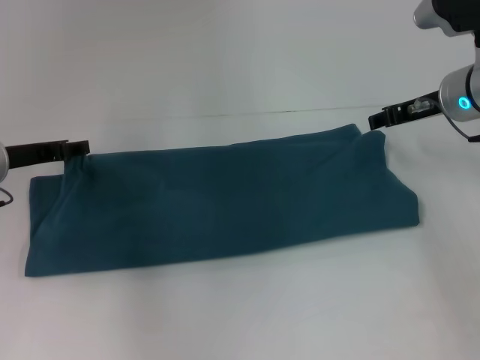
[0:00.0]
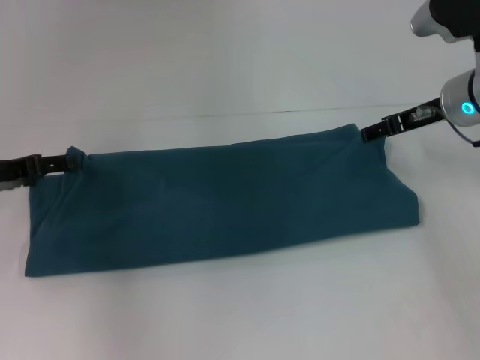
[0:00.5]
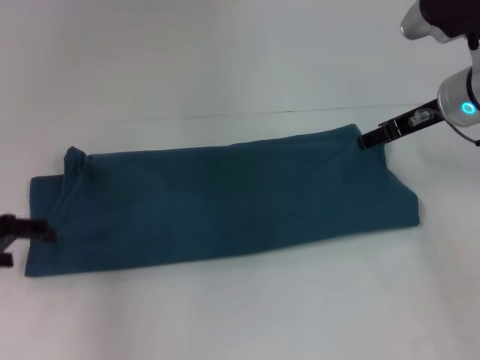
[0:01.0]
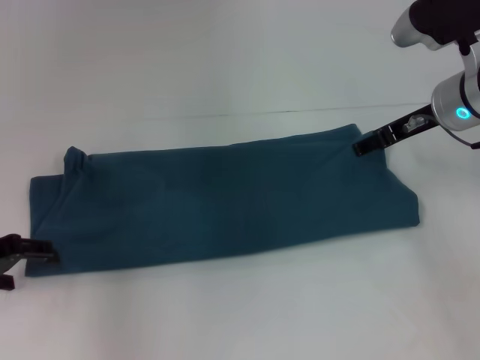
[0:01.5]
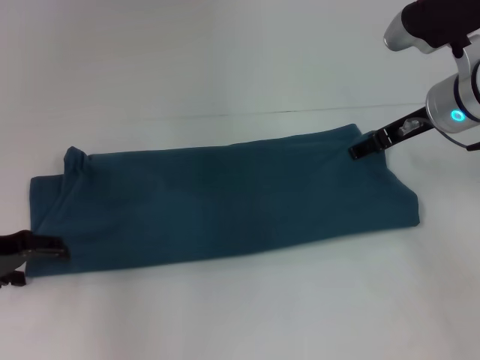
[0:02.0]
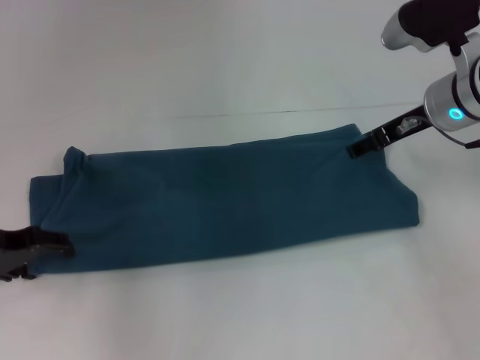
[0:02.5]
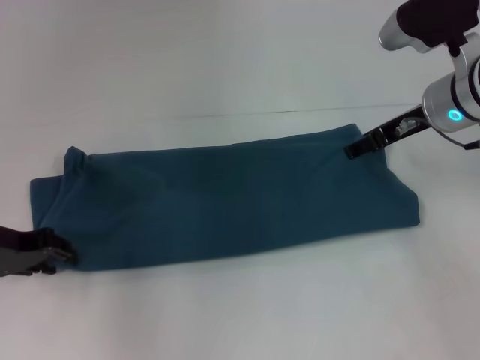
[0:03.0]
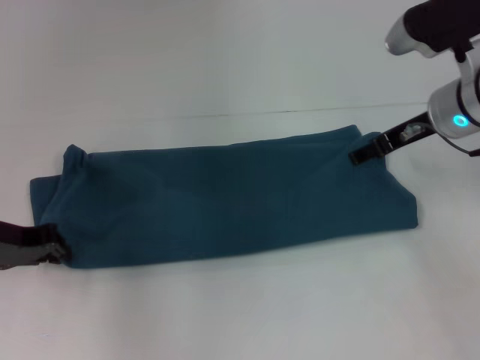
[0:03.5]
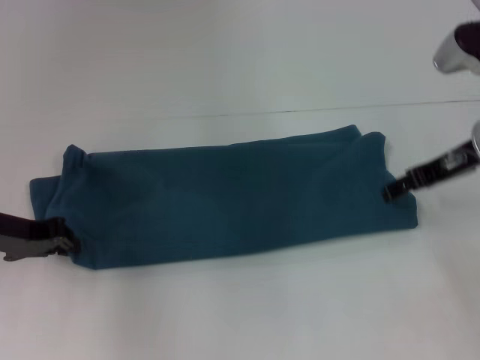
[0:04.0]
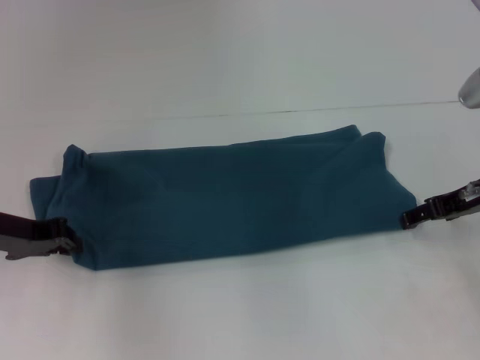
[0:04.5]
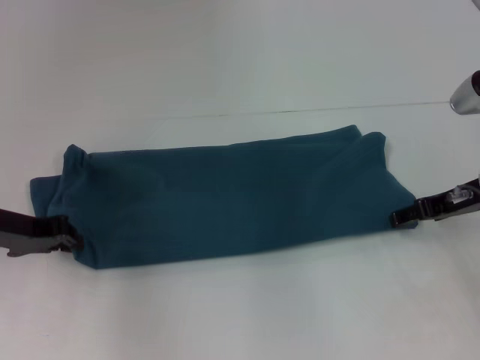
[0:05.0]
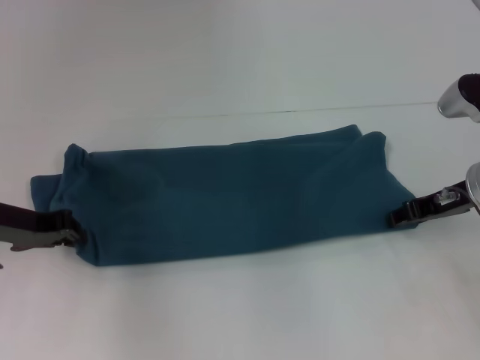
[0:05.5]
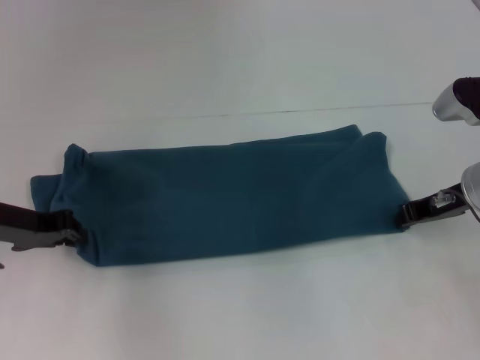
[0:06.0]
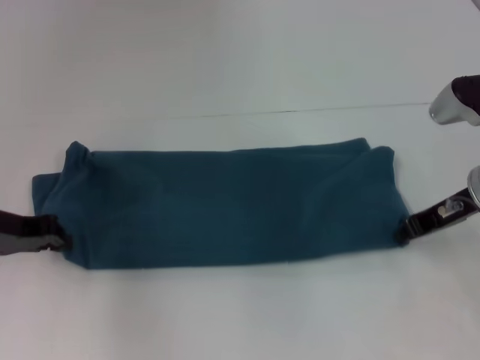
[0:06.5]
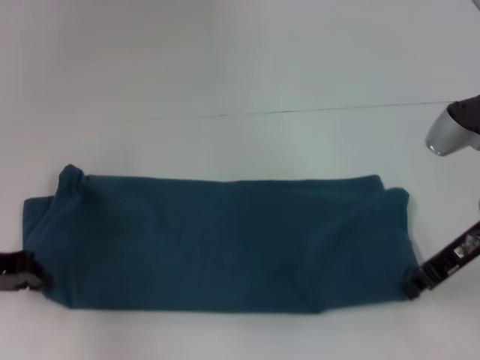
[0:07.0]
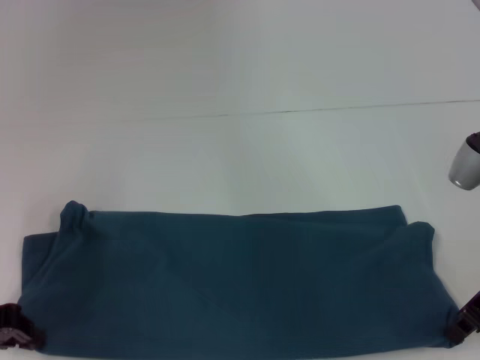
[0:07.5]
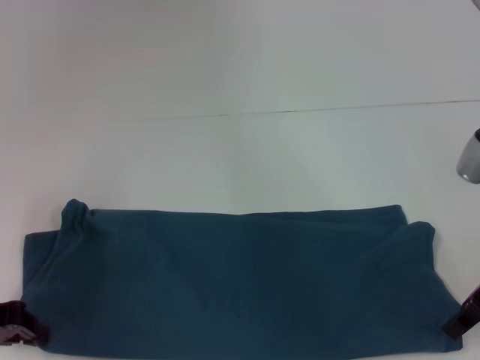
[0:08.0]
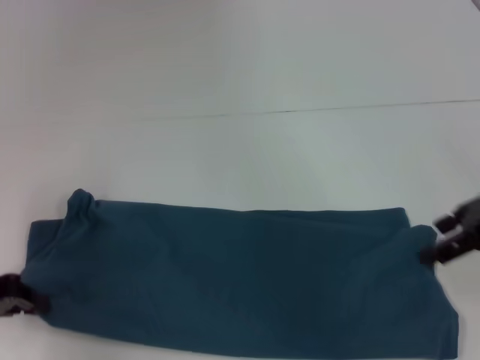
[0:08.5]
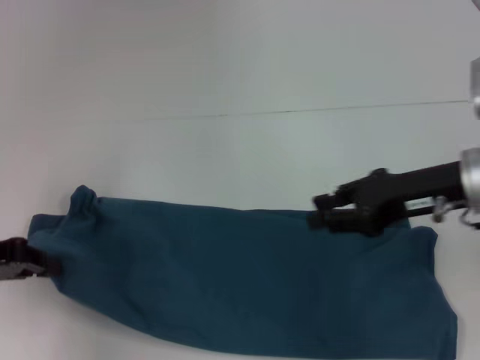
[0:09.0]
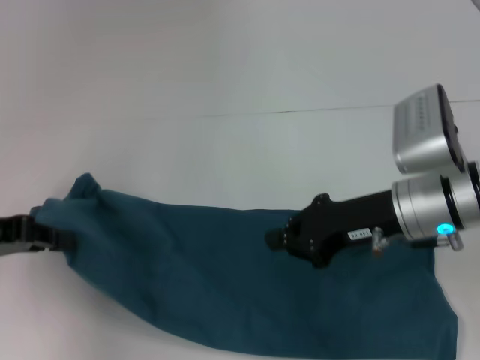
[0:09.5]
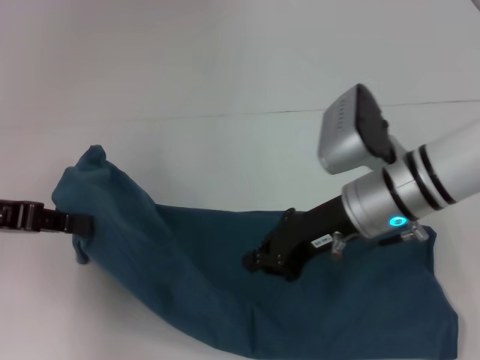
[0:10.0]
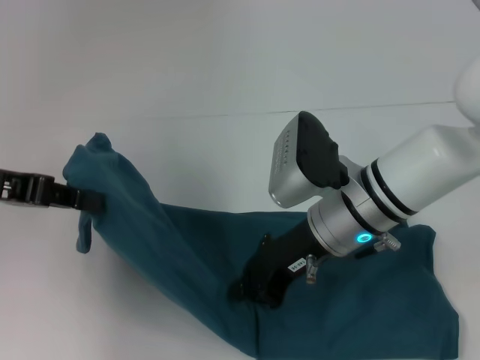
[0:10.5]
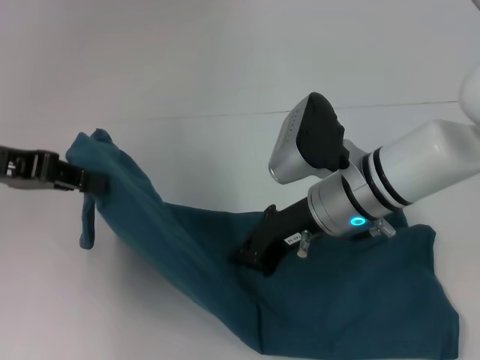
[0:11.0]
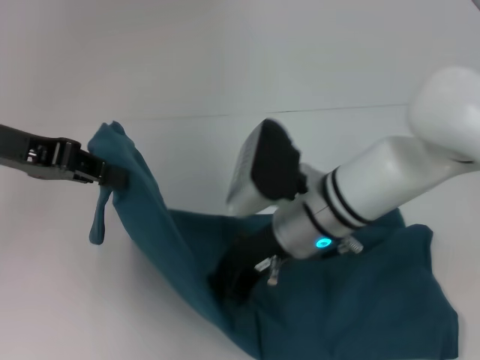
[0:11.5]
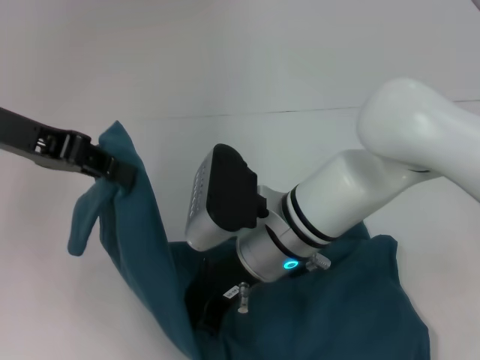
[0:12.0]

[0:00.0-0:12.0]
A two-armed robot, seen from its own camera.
Step, 0:00.5 to 0:08.0: Pull the clothes with your left hand.
Step, 0:00.5 to 0:08.0: Pull the clothes with your right hand.
0:00.0 to 0:02.0: The left gripper heads backward, covering about 5 cm, and opens. Meanwhile the right gripper opens up.
0:02.0 to 0:04.0: The right gripper moves some 5 cm, while the left gripper closes.
0:04.0 to 0:06.0: The right gripper moves downward, roughly 5 cm, and closes its fingers.
0:06.0 to 0:08.0: The two grippers go roughly 5 cm backward.
0:08.0 to 0:10.0: The right gripper heads to the left, covering roughly 15 cm, and opens, then closes again. Meanwhile the left gripper moves upward, approximately 10 cm.
0:10.0 to 0:12.0: The right gripper shifts roughly 10 cm to the left. Meanwhile the left gripper shifts roughly 10 cm upward and to the right.

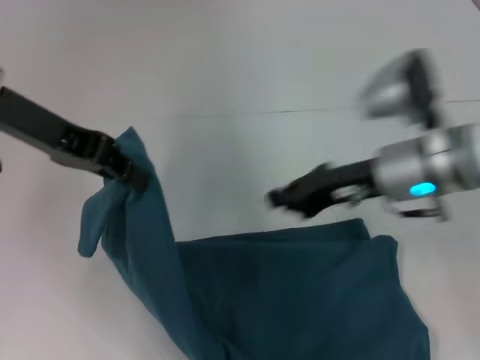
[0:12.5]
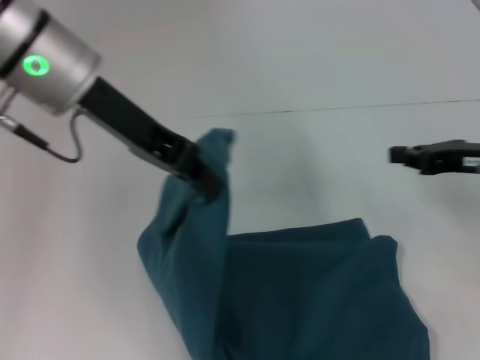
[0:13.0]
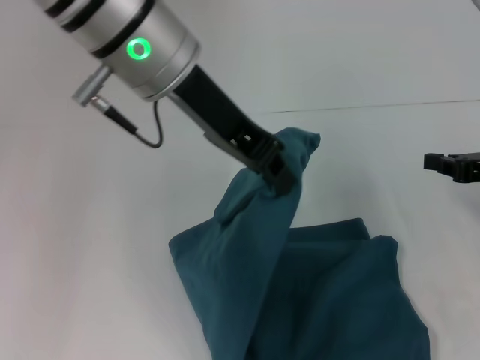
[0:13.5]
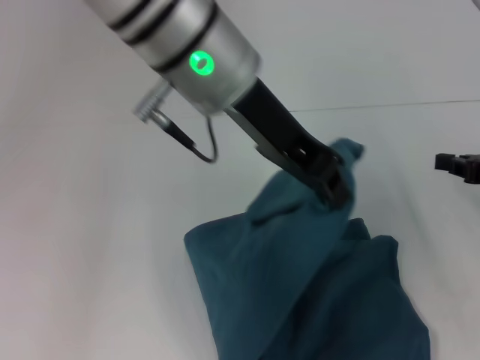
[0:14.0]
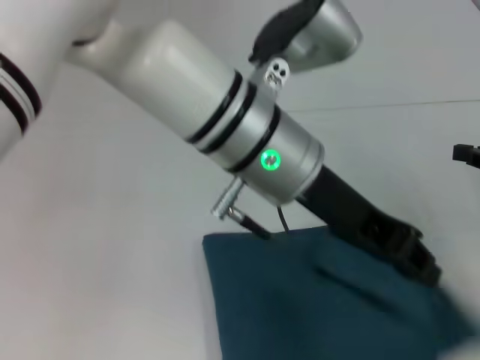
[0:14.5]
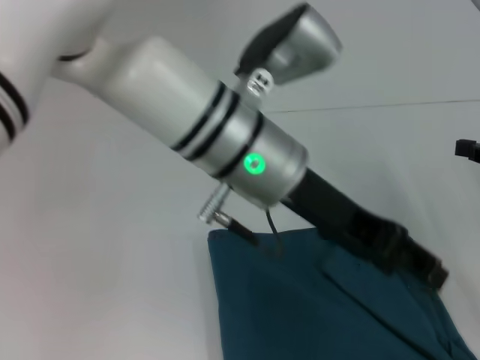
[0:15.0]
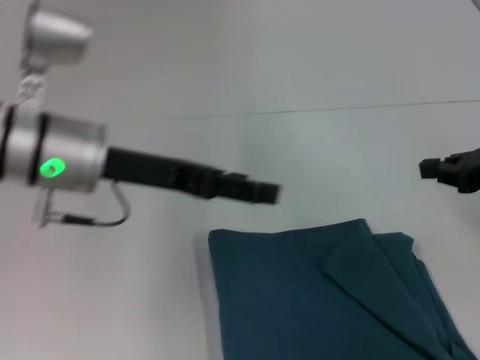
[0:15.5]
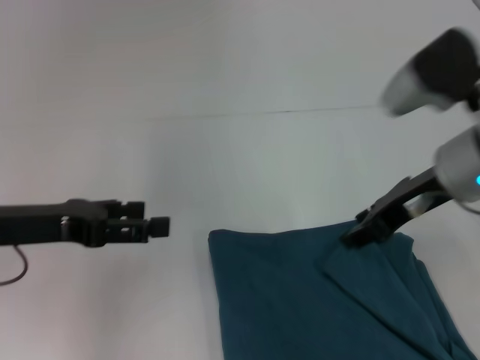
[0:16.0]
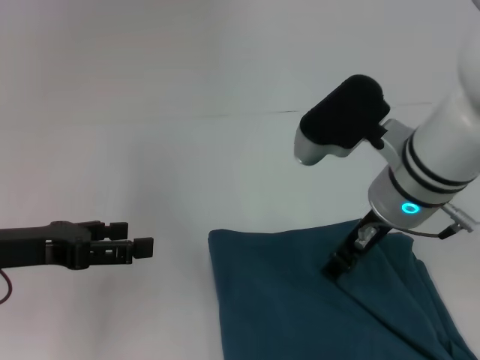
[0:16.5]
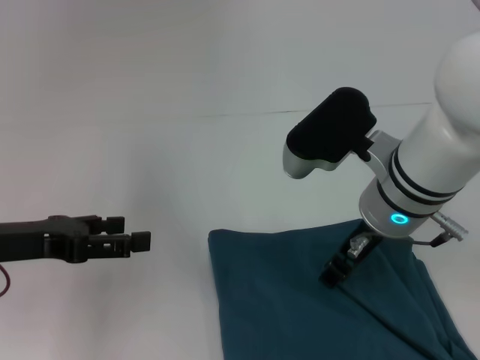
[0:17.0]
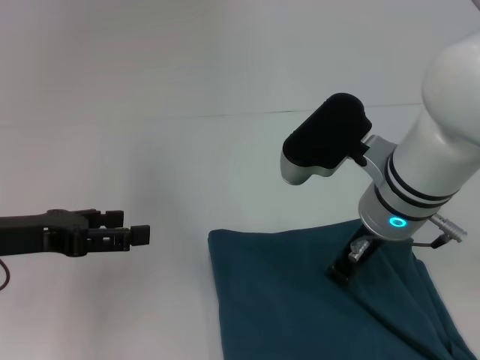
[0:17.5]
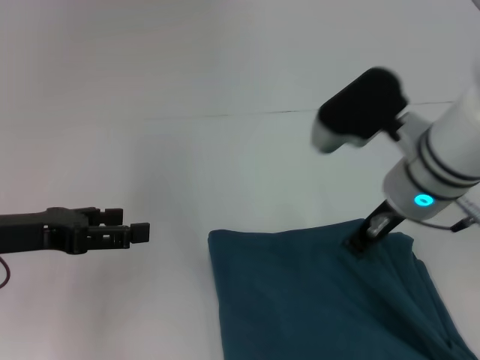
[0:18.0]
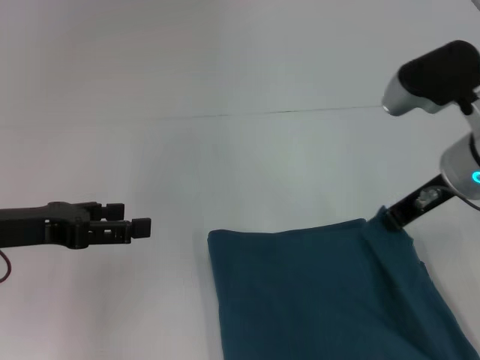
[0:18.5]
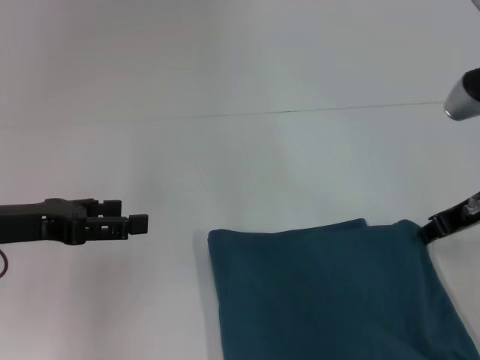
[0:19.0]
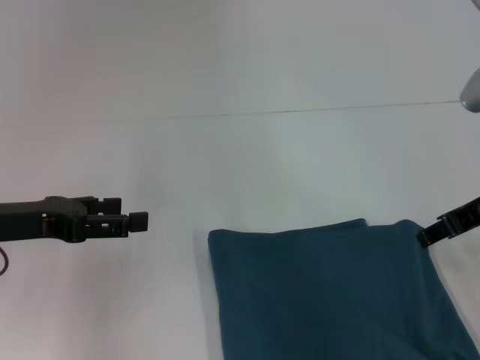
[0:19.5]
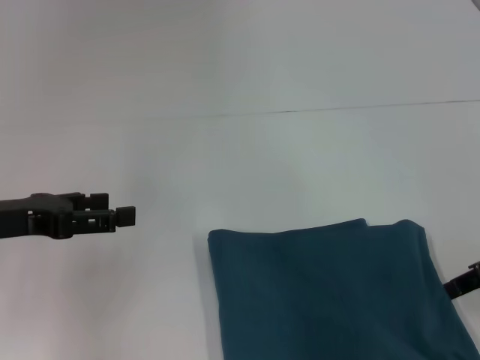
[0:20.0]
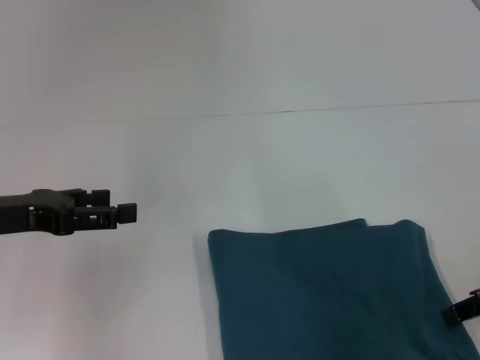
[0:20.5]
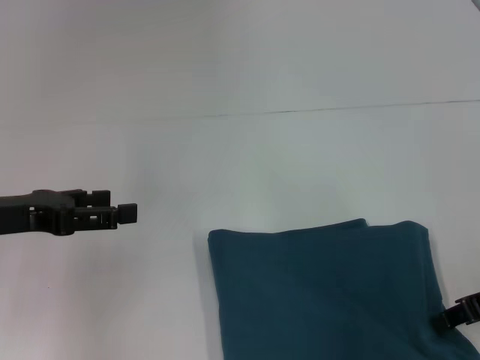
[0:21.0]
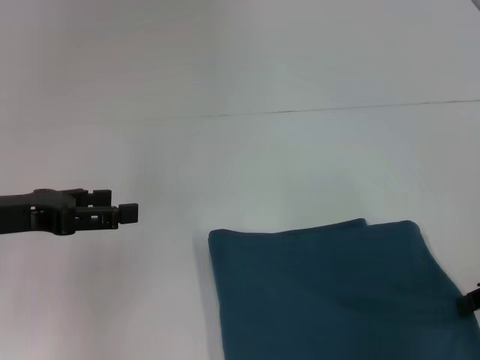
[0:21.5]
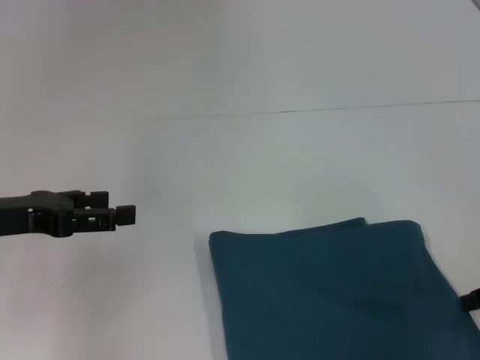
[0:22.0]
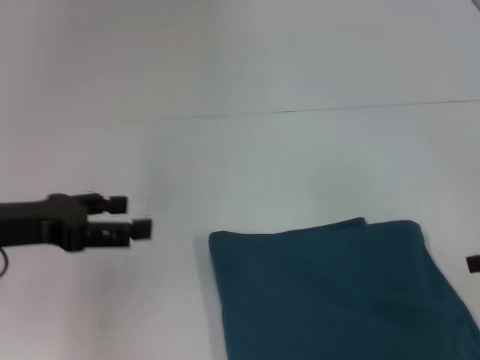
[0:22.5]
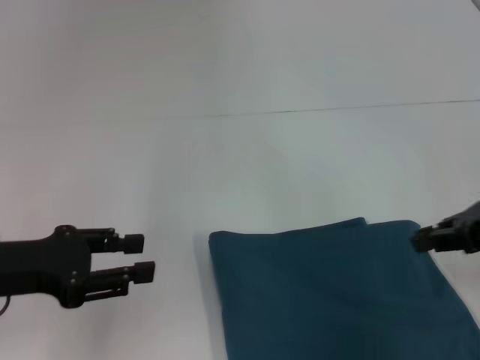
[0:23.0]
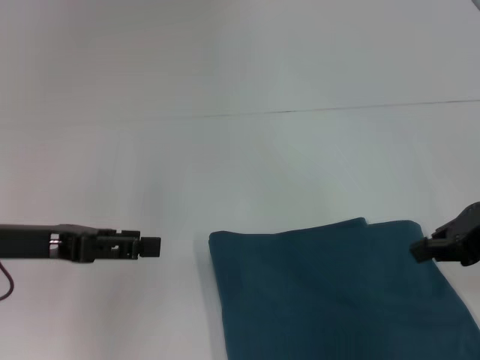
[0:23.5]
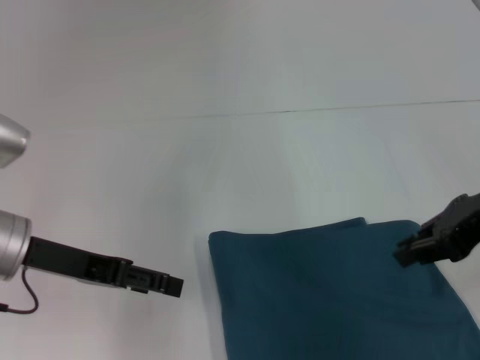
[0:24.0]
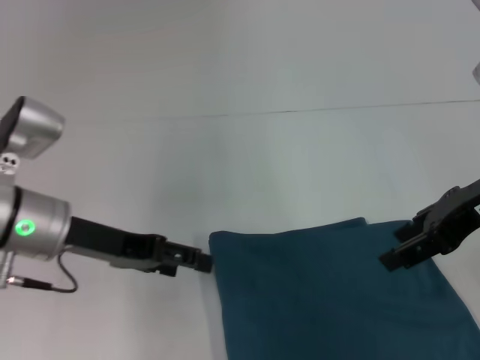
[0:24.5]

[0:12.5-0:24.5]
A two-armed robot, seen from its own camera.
Step, 0:12.5 to 0:15.0: Fold the clothes to the left.
0:12.5 to 0:14.5: Both grippers travel together to the right, some 20 cm.
0:14.5 to 0:16.5: Both grippers move to the left, approximately 25 cm. The right gripper opens. Meanwhile the left gripper opens up.
0:16.5 to 0:18.5: The right gripper travels to the right by about 10 cm, and closes.
0:18.5 to 0:20.5: The right gripper moves to the right and backward, approximately 10 cm, and opens up.
0:20.5 to 0:22.5: The right gripper heads to the right, covering some 5 cm, and closes, then reopens.
0:22.5 to 0:24.5: The left gripper shifts roughly 5 cm to the right. The right gripper moves to the left and upward, roughly 10 cm, and closes, then opens again.

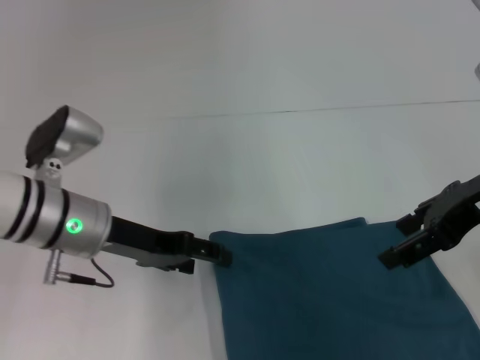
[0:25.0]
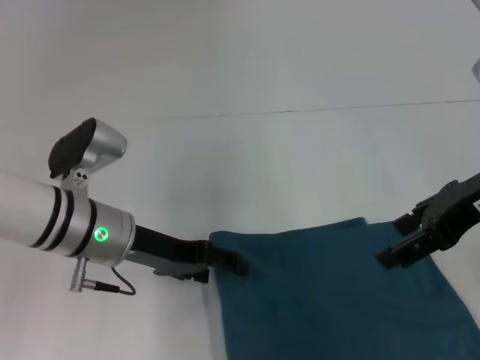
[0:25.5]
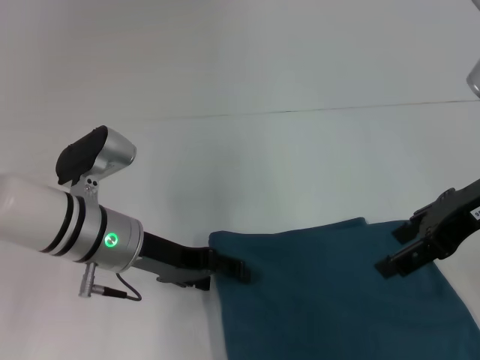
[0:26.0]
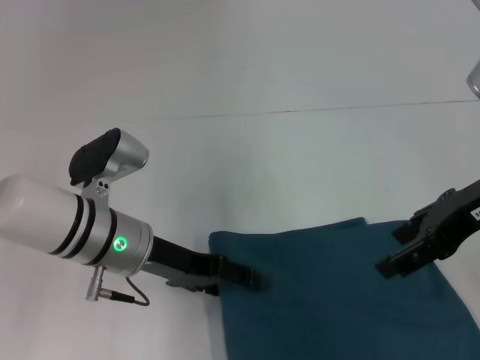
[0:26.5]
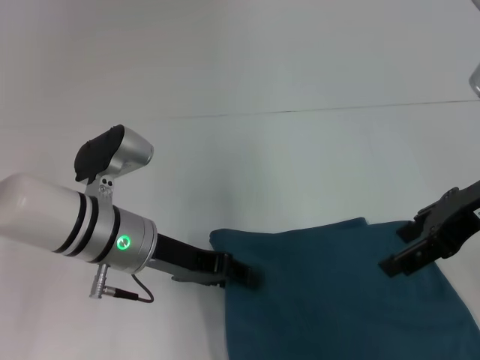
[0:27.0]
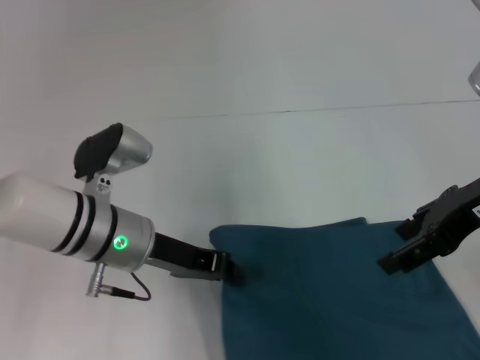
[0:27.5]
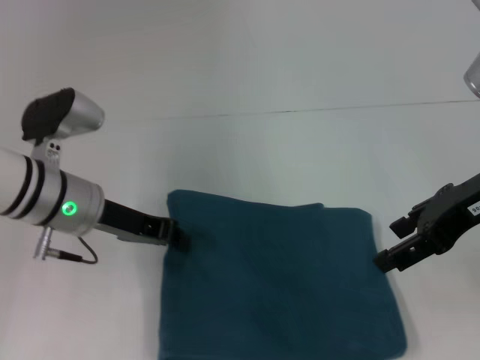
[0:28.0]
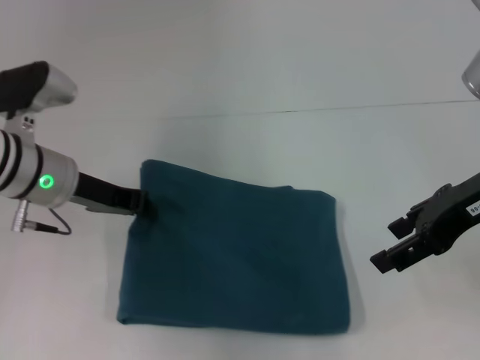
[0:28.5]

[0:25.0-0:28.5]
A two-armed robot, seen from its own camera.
0:25.0 to 0:27.0: The grippers stay close to where they were, moving slightly.
0:27.0 to 0:28.5: The left gripper moves to the left and forward, about 10 cm, and closes its fingers.
